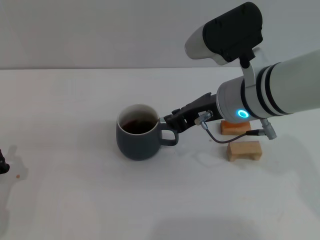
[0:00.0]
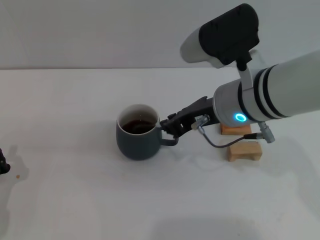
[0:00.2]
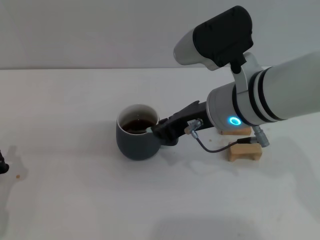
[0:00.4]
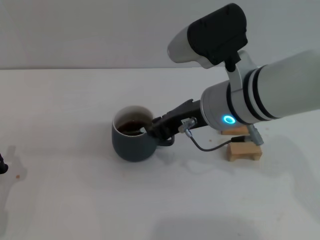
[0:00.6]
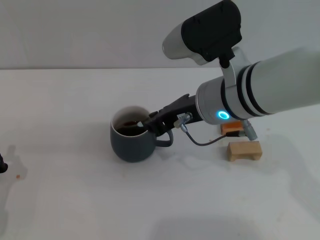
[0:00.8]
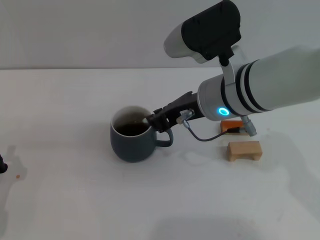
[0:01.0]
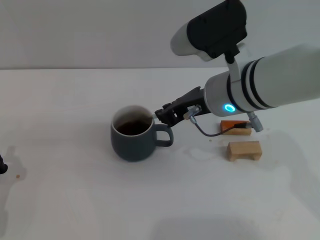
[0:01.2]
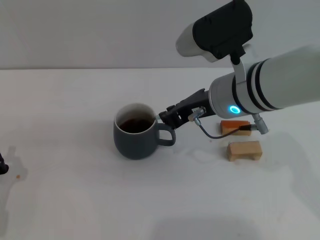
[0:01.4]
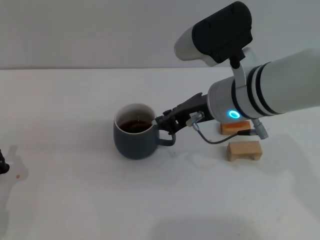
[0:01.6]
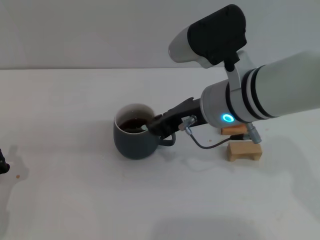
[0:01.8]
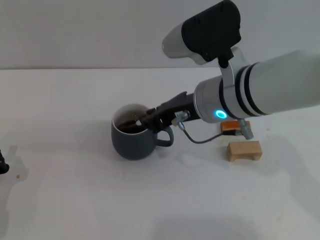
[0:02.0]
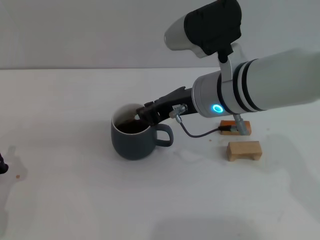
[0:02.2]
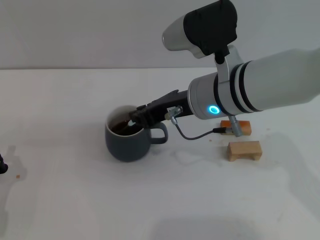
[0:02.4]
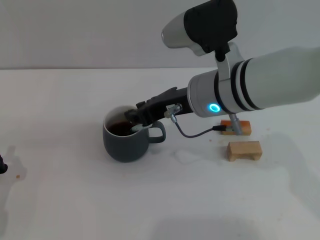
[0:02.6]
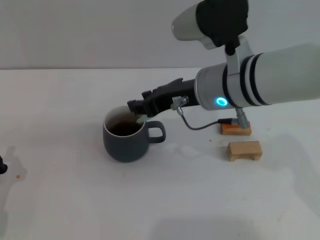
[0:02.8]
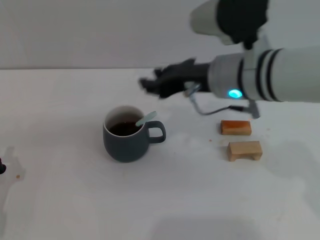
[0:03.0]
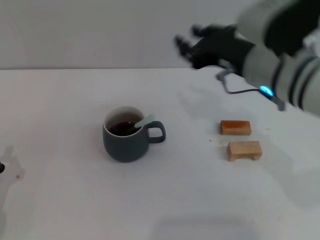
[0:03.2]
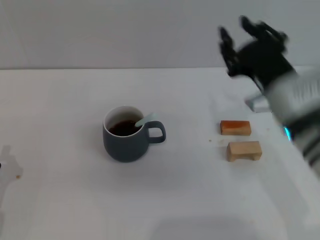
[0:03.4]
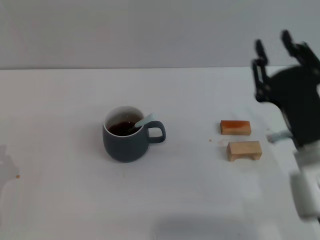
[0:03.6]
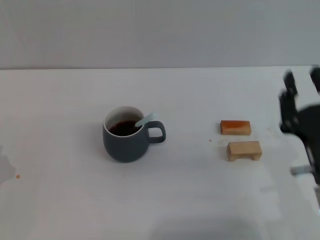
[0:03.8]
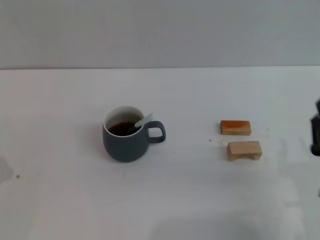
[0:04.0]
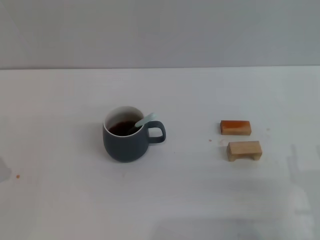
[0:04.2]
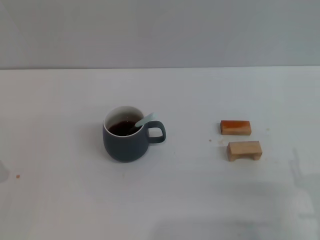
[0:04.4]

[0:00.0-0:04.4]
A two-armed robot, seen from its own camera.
Task of the whole recording: Move the grey cup to the center, lift the blue spoon, stir it three times in the cup, and put the spoon into the cup.
Step, 0:00.0 to 0:02.8: Stir the coffee in the cup with the right gripper.
0:00.0 to 0:01.4: The grippers move only a little.
0:01.4 to 0:03.0: The right gripper opens its fingers.
0:03.0 to 0:04.4: The right gripper is displaced backward, downward and to the right by approximately 30 cm, and opens its fingers.

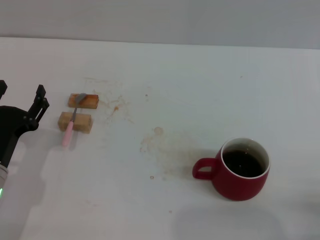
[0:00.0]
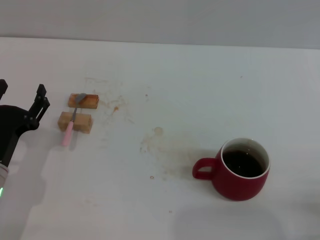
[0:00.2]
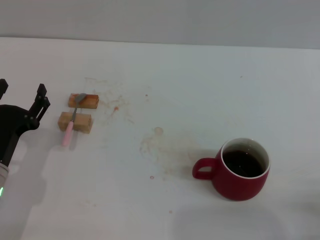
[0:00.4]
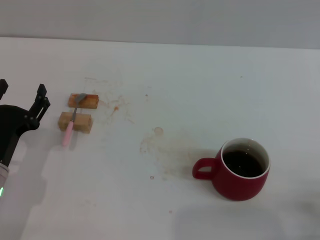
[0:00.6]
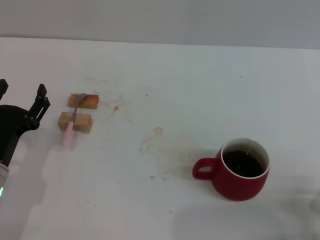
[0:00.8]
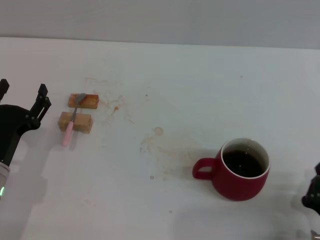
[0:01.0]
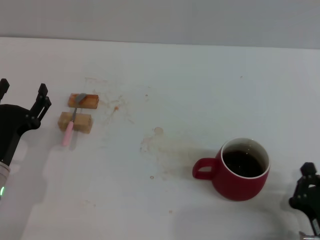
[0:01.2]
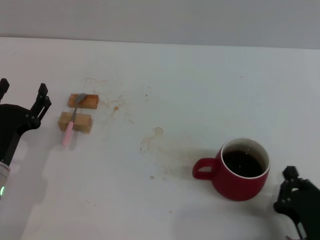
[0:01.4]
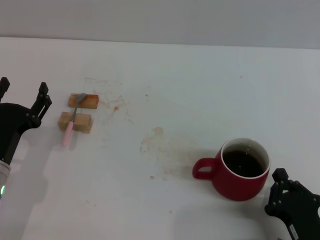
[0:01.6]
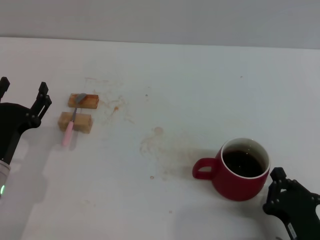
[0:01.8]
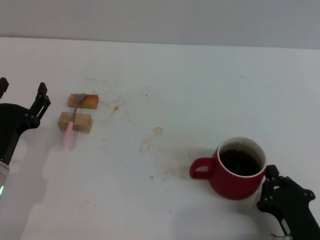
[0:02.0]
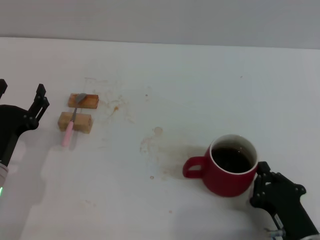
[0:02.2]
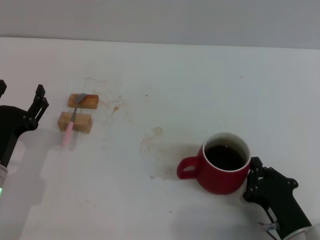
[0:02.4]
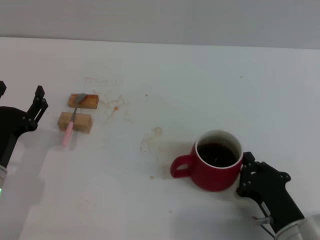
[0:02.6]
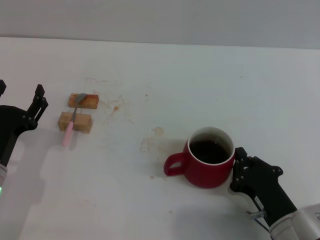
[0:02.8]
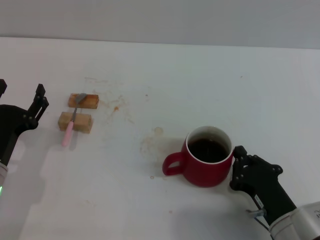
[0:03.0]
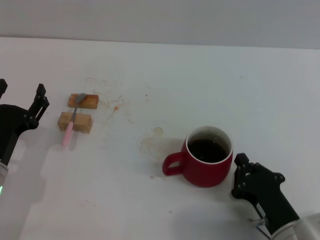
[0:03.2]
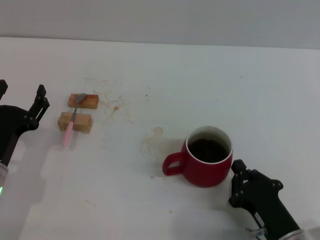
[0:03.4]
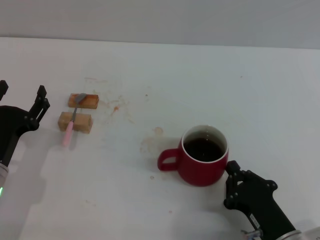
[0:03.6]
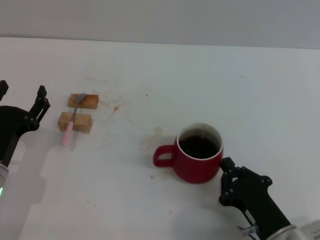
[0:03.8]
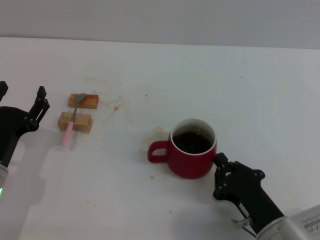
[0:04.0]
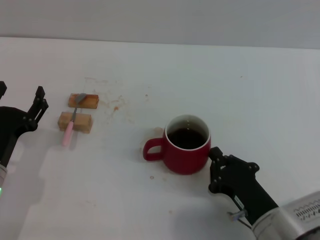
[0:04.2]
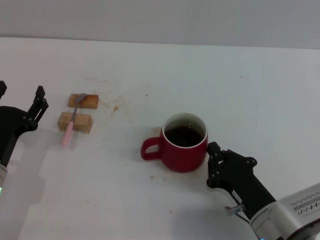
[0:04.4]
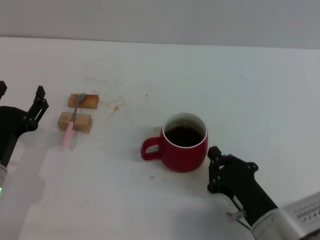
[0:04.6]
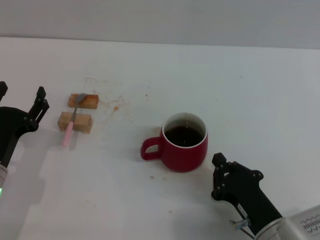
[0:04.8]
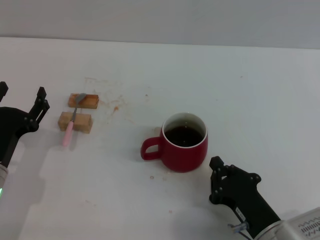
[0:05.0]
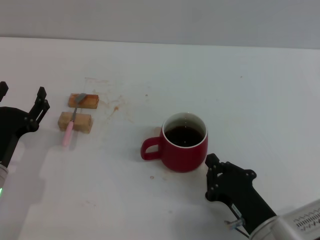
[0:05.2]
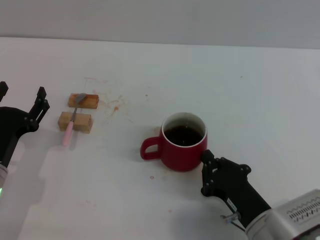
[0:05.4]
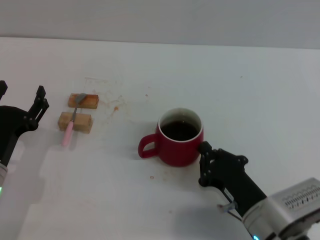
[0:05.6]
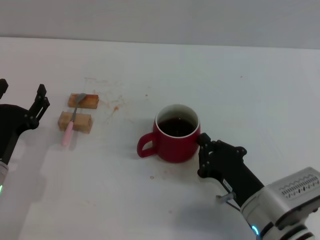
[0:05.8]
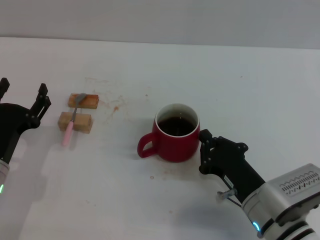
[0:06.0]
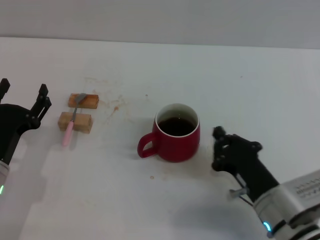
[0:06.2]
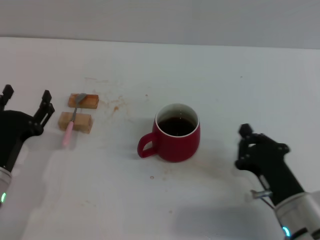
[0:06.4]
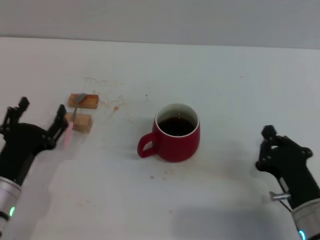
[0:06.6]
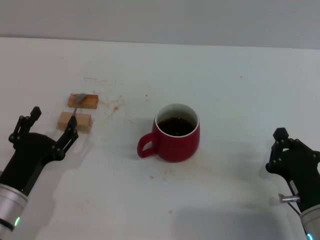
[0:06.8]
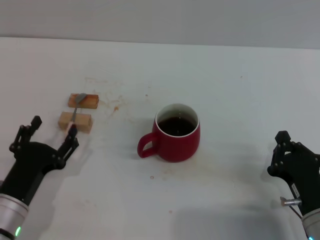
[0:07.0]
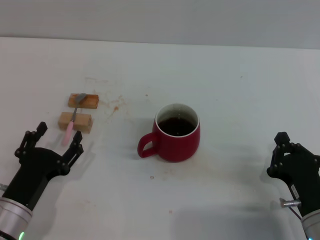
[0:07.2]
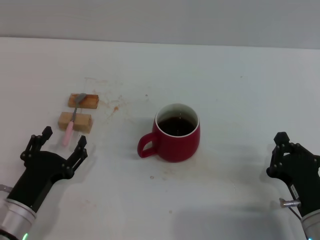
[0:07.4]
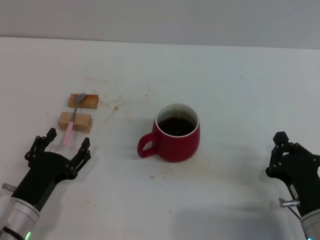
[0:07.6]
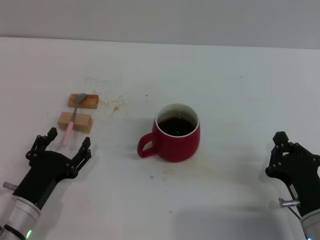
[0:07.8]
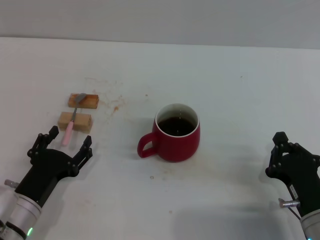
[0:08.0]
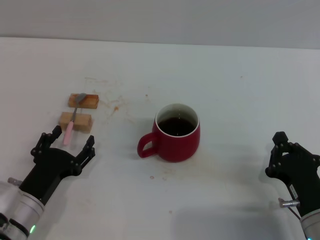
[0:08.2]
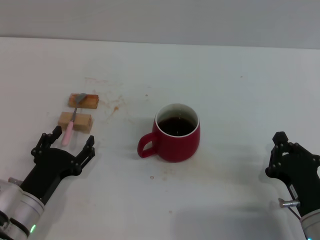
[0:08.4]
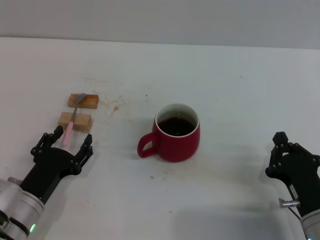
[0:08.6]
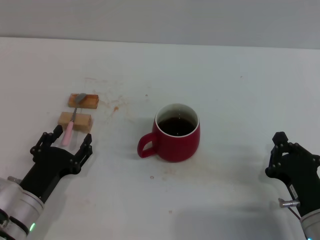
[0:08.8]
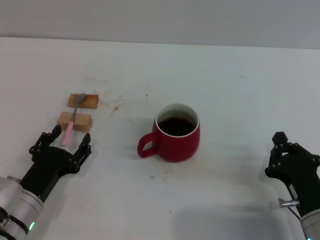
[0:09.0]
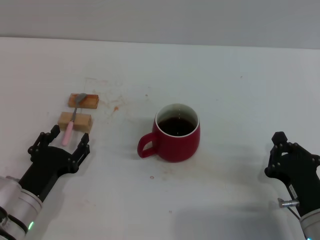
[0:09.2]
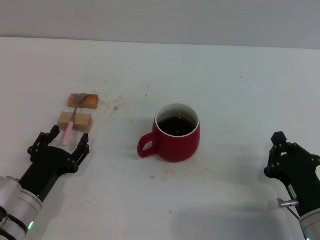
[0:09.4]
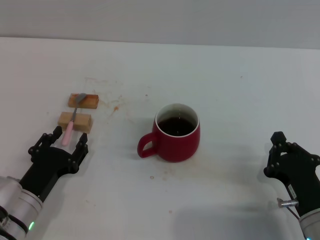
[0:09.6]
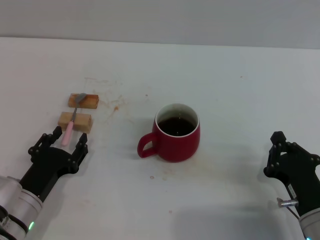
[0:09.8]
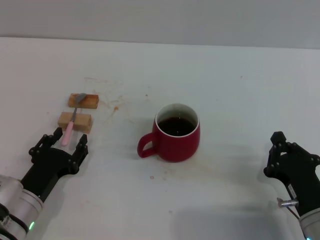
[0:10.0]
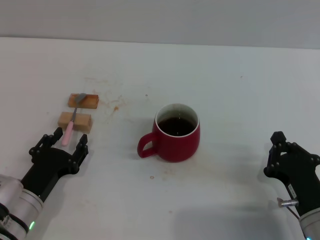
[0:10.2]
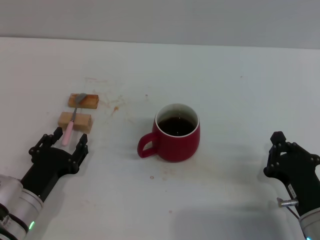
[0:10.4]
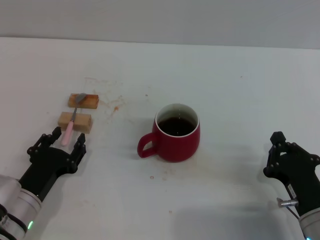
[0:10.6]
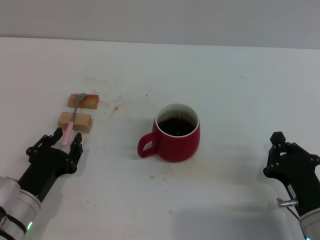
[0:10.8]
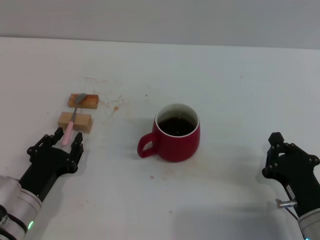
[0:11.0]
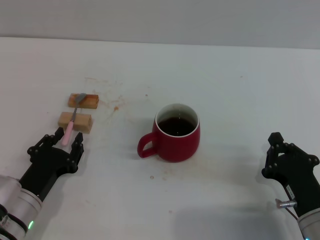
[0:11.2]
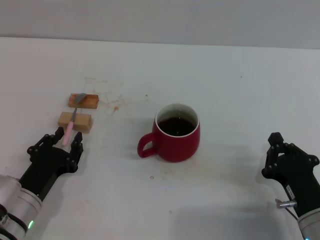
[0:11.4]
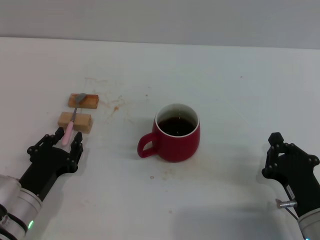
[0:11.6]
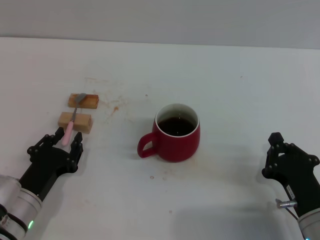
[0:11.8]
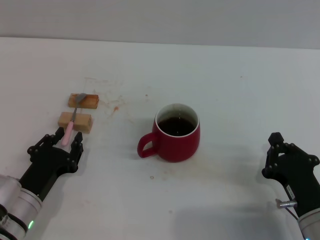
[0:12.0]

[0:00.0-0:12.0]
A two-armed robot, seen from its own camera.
Task of the whole recording: Move the red cup to the center, lift the pink spoon, stir it three times in the cup, and put the spoon into the cup.
Step, 0:00.0 to 0:06.2: Move the cup with coffee to the center of view with the right gripper.
0:00.0 to 0:01.6: The right gripper heads to the left, covering some 5 cm.
0:01.6 to 0:03.0: The right gripper is displaced forward by some 5 cm.
0:03.0 to 0:06.0: The grippers stay close to where they were, moving slightly.
0:06.0 to 0:07.6: The left gripper ends up roughly 5 cm from where it was. The right gripper travels to the right by about 5 cm.
0:07.6 to 0:09.0: The grippers move only a little.
0:09.0 to 0:12.0: Both grippers stay about where they are.

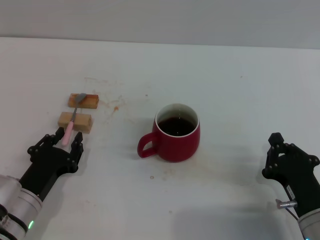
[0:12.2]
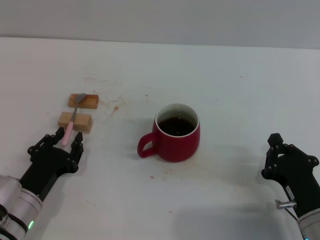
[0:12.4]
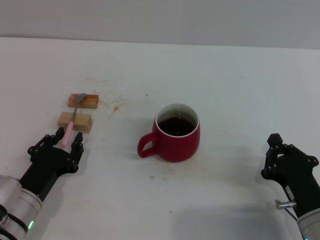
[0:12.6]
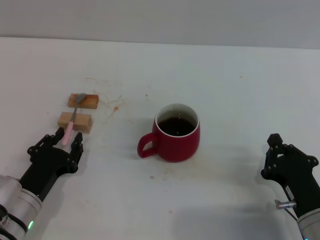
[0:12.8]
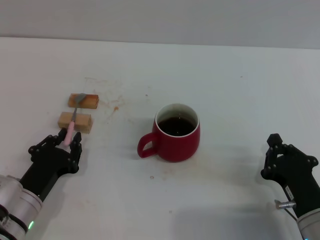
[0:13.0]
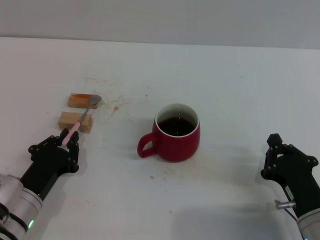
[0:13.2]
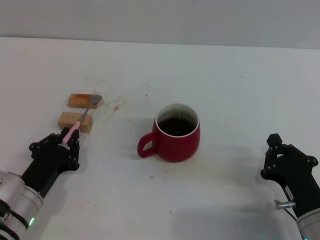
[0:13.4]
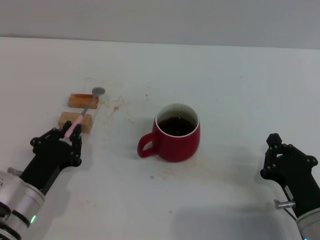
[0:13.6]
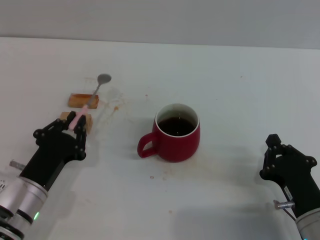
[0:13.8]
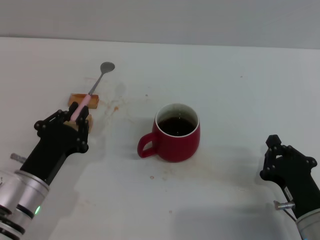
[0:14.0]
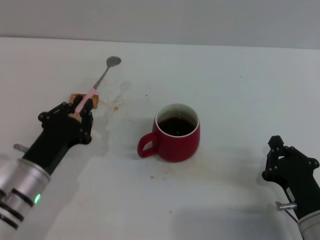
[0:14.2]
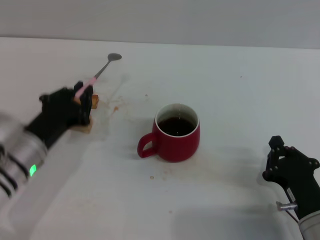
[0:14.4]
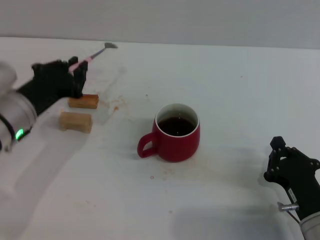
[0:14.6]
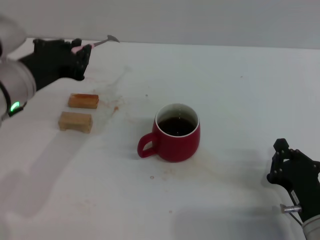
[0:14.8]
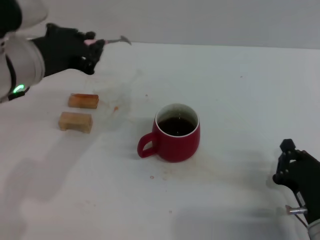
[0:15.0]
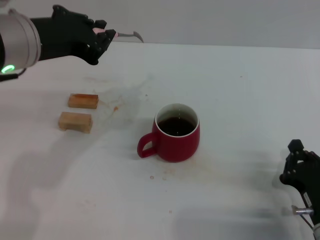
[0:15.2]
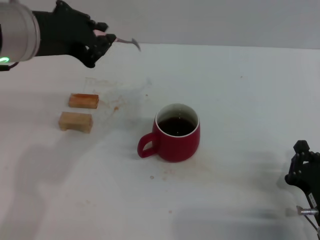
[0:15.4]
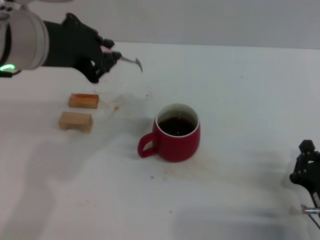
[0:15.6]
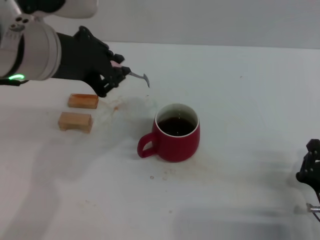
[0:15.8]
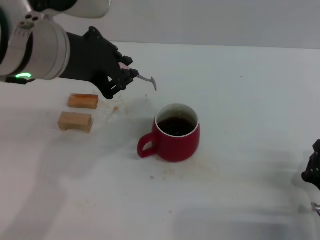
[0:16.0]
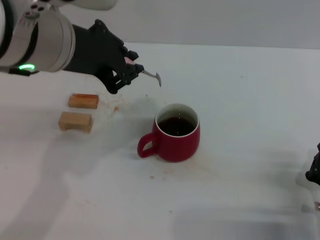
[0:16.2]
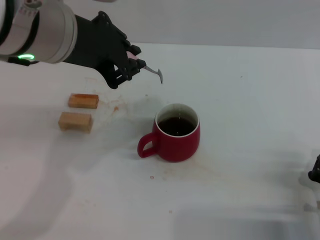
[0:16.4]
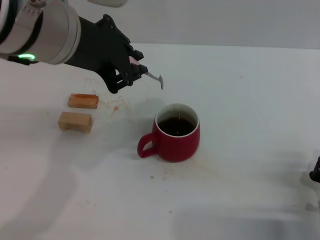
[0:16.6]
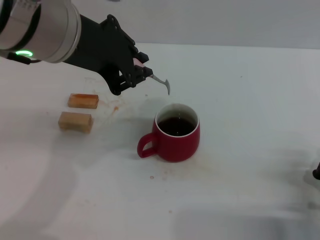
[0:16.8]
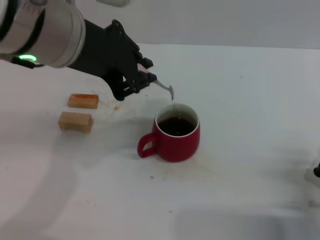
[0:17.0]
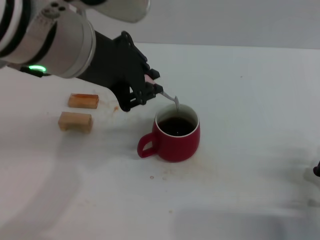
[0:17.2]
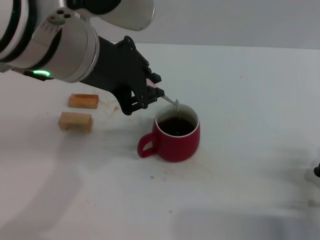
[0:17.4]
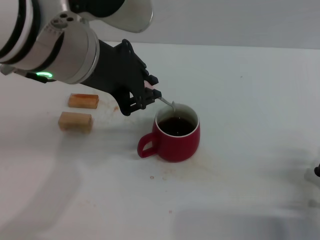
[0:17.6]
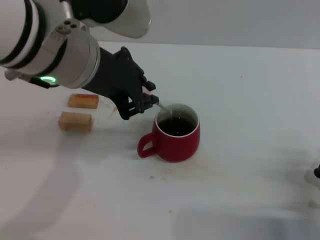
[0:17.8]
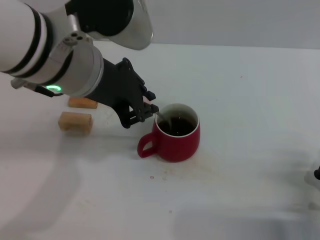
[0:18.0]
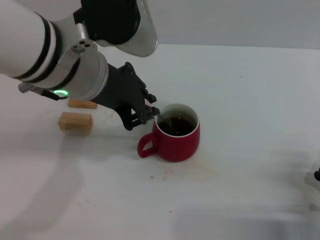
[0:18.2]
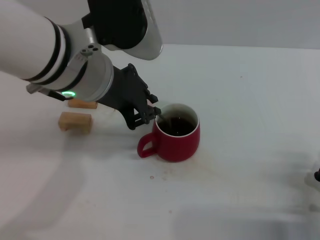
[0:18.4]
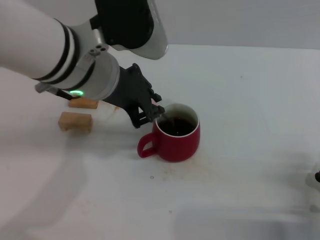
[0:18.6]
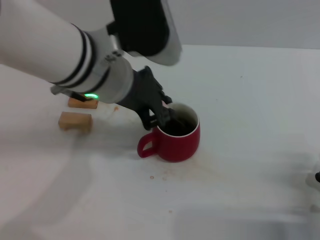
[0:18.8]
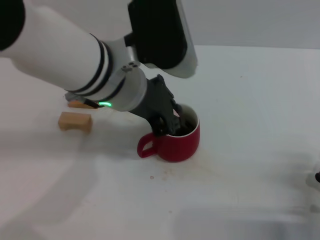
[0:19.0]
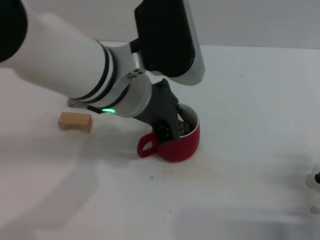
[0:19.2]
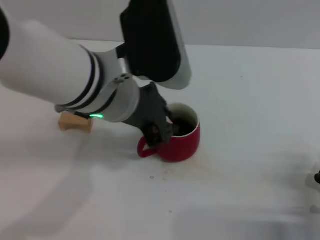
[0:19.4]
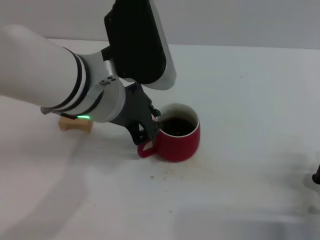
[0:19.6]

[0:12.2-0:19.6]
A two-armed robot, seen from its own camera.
Task of the whole recording: Move the red cup to the center, lift the pink spoon, stir it three times in the cup, and put the spoon into the cup.
Step, 0:12.2 to 0:15.4: Pick up the spoon with the left gripper.
0:12.2 to 0:13.6: The left gripper closes up.
0:13.6 to 0:15.2: The left gripper goes roughly 25 cm upward.
0:15.2 to 0:16.6: The left gripper goes roughly 5 cm to the right.
0:16.6 to 0:18.2: The left gripper shifts by approximately 5 cm.
0:18.2 to 0:19.6: The grippers stay close to where they were, moving slightly.
